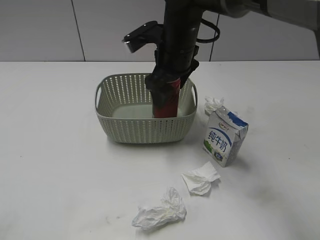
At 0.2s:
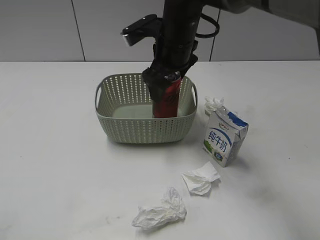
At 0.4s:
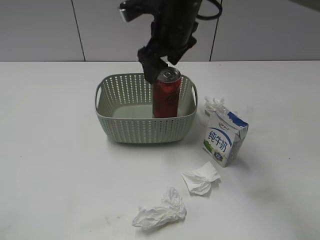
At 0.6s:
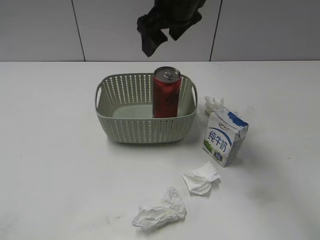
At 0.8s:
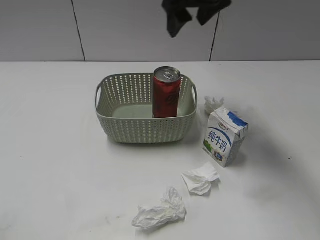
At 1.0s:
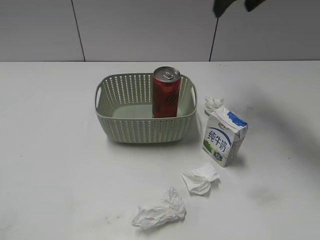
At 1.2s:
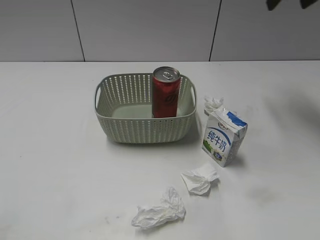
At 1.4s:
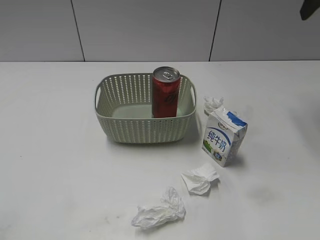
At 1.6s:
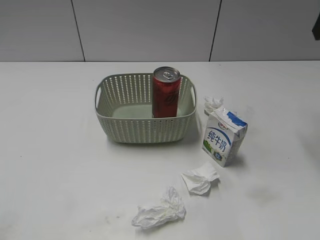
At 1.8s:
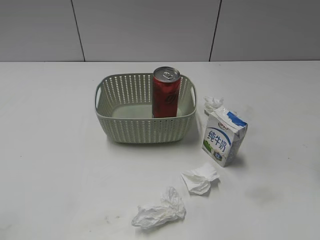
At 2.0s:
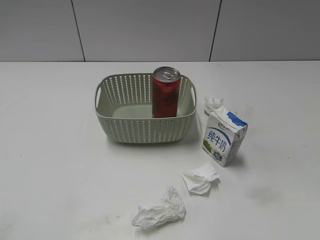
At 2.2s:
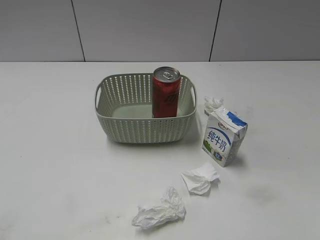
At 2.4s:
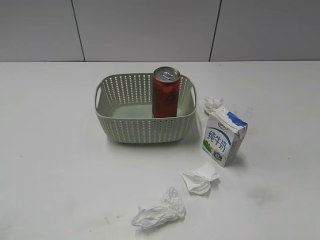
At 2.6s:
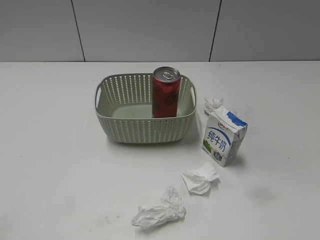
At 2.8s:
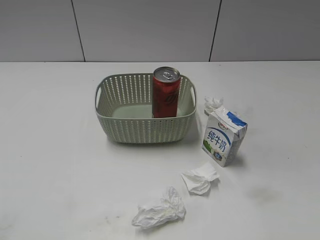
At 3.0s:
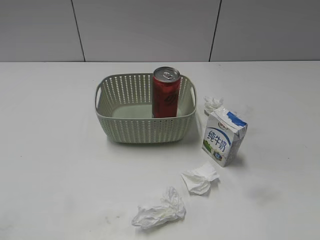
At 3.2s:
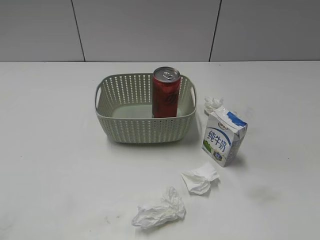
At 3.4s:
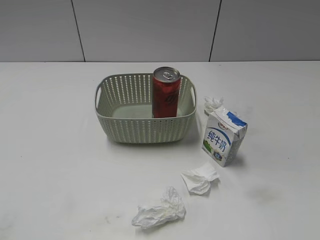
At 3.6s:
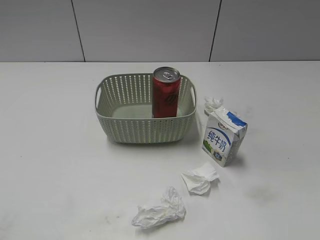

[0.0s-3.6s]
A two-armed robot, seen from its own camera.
0.0s to 1.8s: The right gripper goes approximately 30 cm to the right, upward and backward, and closes.

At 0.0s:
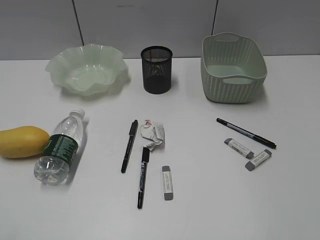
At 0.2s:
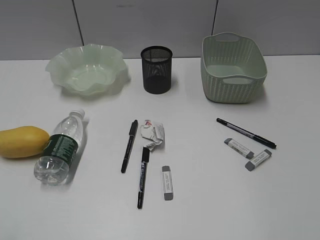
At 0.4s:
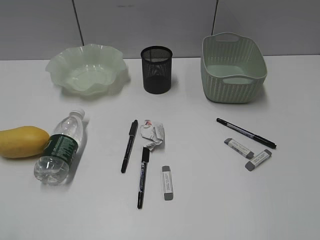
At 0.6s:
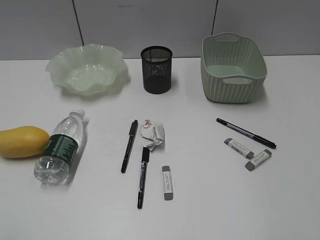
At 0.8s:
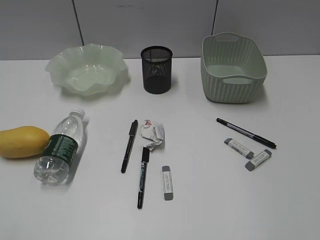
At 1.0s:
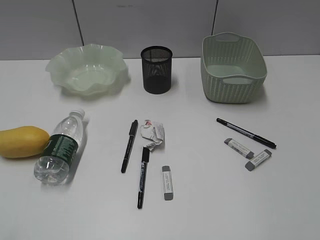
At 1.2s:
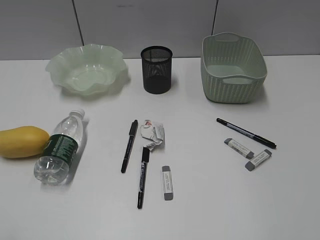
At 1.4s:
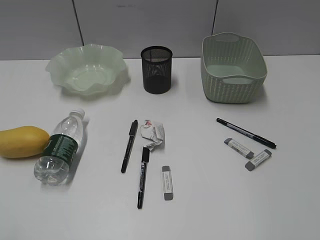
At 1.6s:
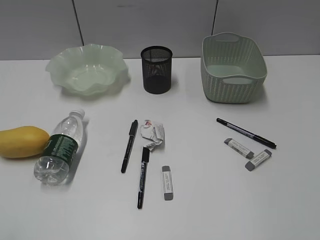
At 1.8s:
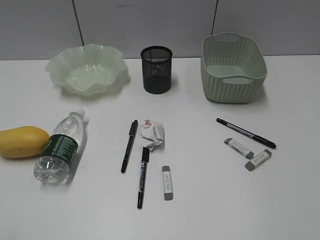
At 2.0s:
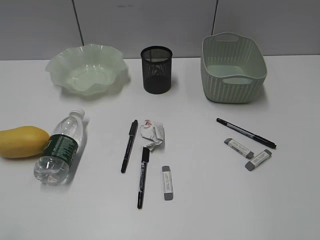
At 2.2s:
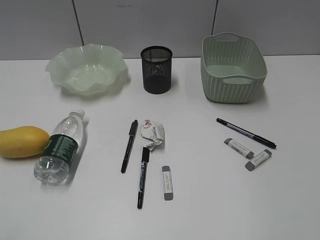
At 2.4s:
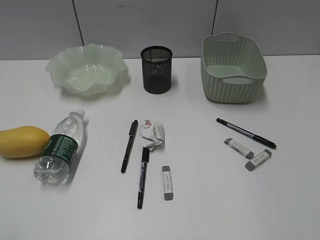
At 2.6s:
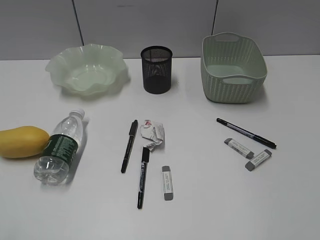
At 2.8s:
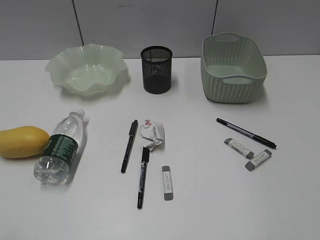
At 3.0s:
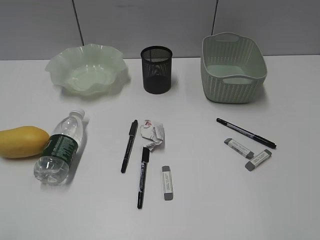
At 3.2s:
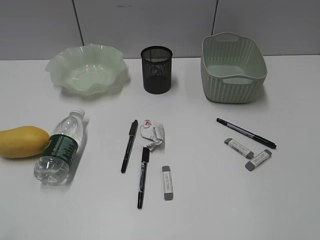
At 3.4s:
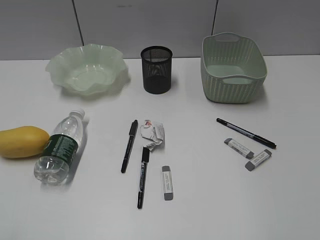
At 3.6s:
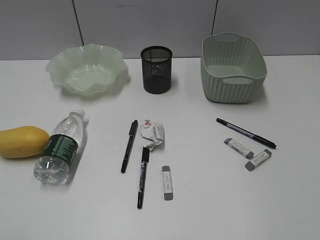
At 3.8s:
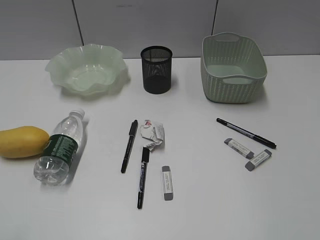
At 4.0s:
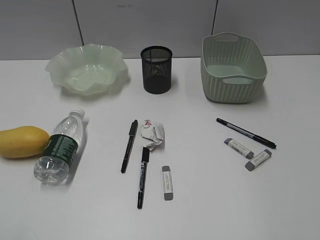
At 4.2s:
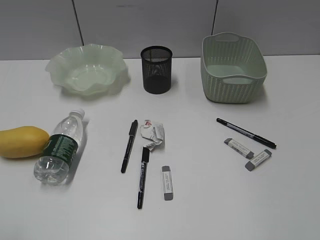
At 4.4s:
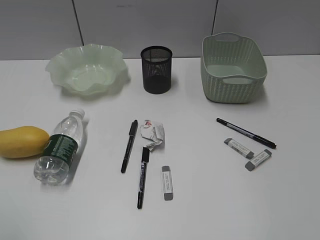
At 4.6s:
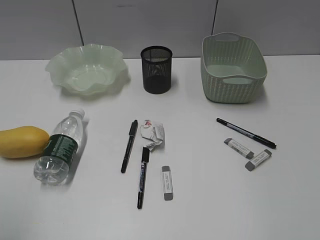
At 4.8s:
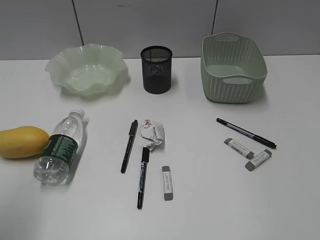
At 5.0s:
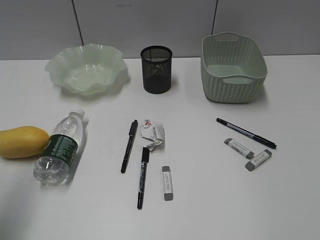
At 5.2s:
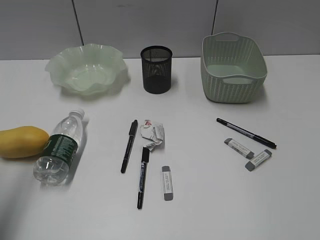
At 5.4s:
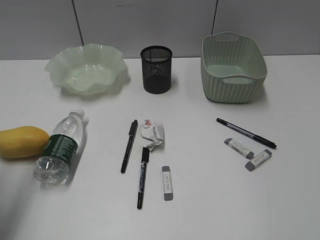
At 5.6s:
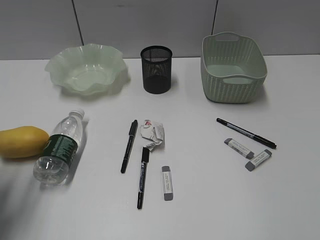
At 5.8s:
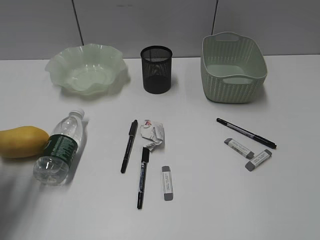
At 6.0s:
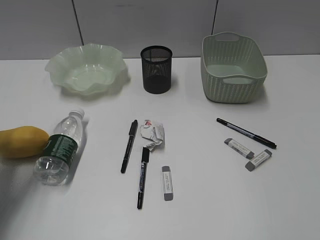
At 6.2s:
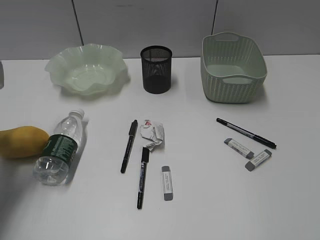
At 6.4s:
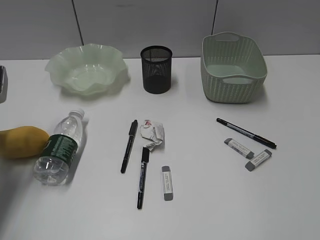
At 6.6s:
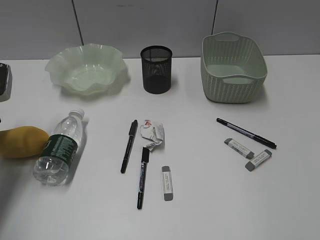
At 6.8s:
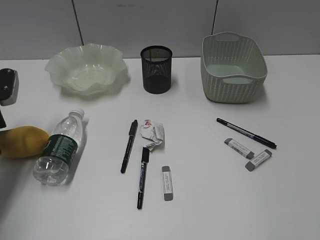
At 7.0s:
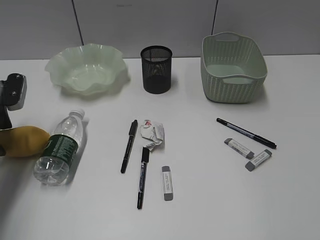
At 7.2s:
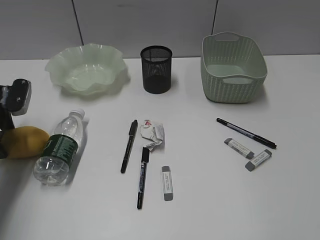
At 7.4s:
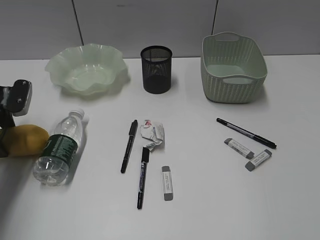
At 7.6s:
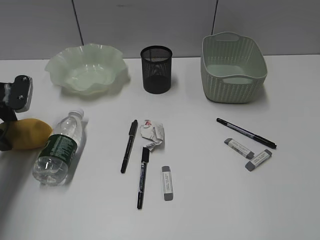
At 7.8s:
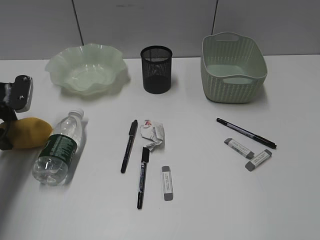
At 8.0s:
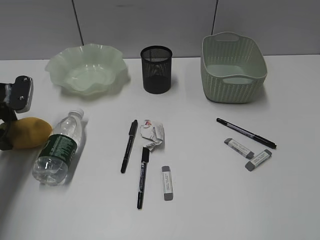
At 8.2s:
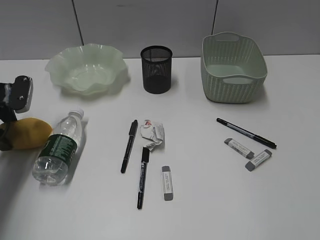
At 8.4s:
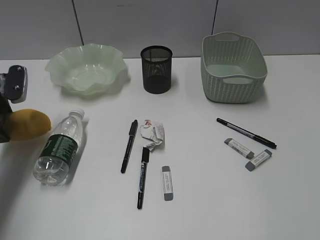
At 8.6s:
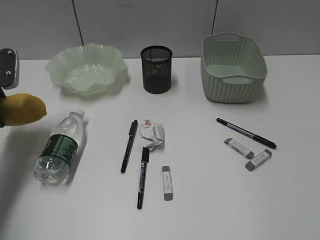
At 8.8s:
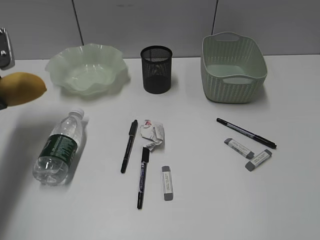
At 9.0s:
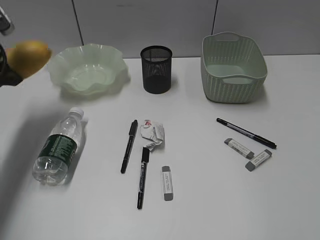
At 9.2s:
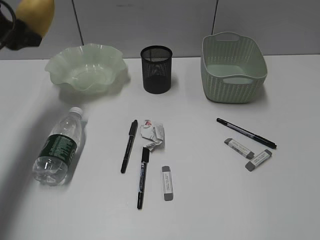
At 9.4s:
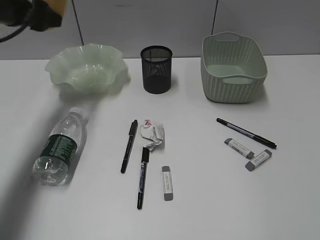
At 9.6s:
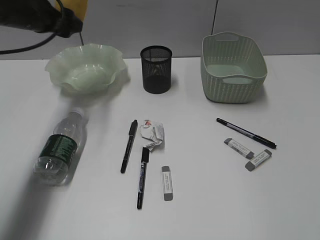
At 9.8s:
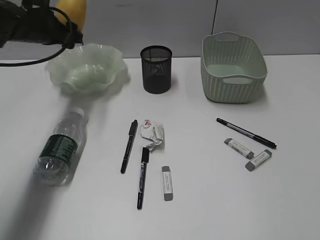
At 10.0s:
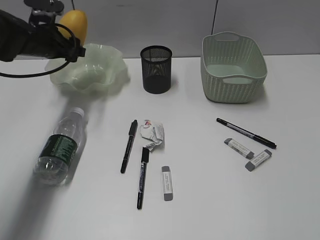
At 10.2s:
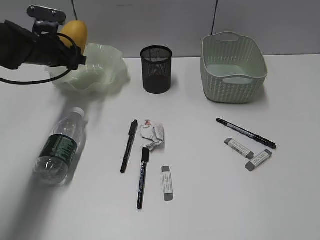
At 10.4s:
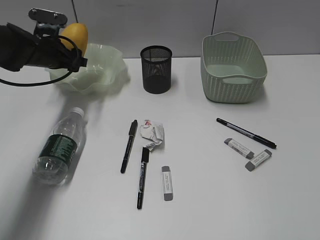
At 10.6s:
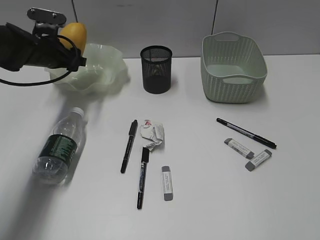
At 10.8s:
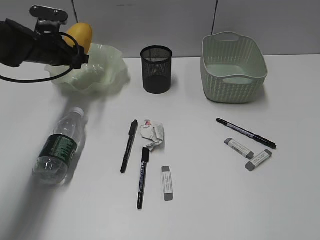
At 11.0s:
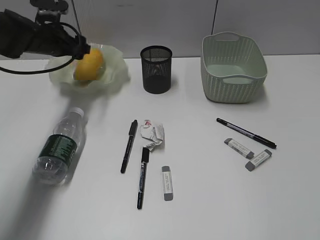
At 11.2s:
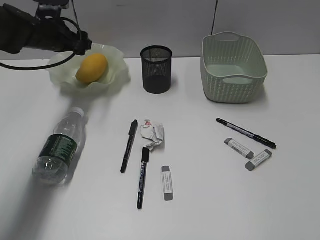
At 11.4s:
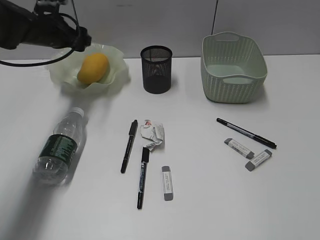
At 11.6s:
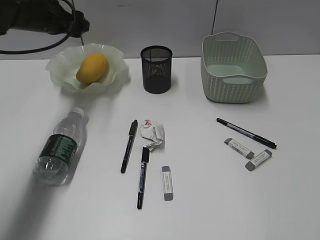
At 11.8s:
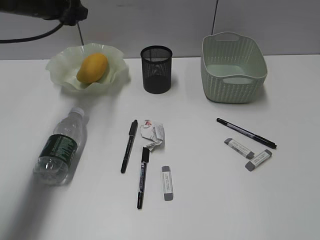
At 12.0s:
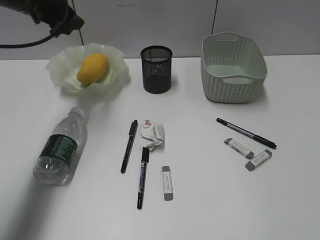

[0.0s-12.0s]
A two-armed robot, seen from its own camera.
Step, 6.2s to 8.0s: Grasp the mango with left gripper.
Step, 8.2s to 11.0s: Place the mango in the plate with left gripper.
1.6s to 3.0s: The two grippers keep their place.
4.4s to 6.0s: The left gripper goes approximately 25 cm forward.
6.0s to 7.6s: The left gripper moves forward and downward, approximately 10 cm.
7.6s to 9.0s: The left gripper moves upward, roughly 10 cm.
9.0s to 10.4s: The left gripper goes some 15 cm forward, to the right and downward.
10.4s to 12.0s: The left gripper travels upward by about 10 cm.

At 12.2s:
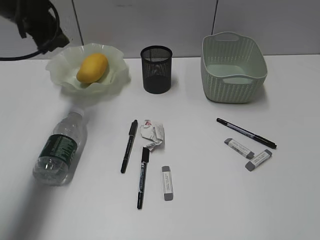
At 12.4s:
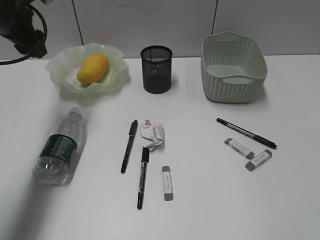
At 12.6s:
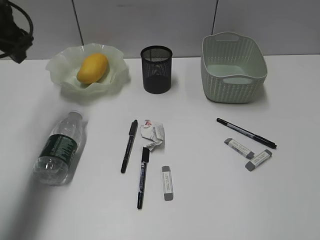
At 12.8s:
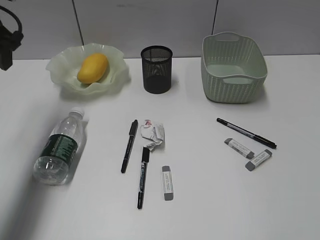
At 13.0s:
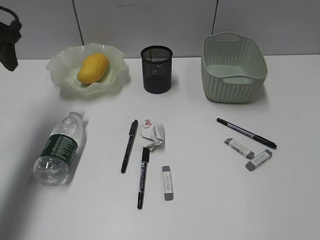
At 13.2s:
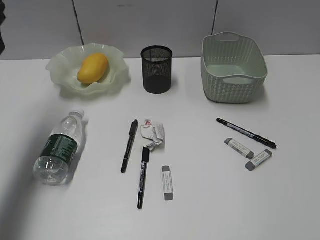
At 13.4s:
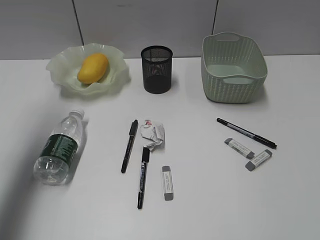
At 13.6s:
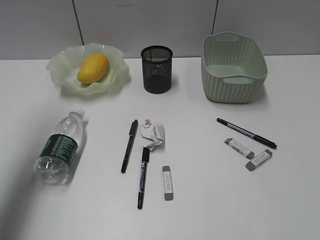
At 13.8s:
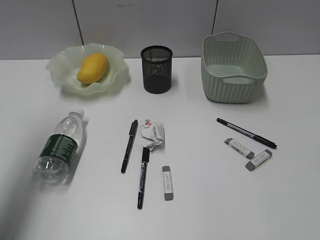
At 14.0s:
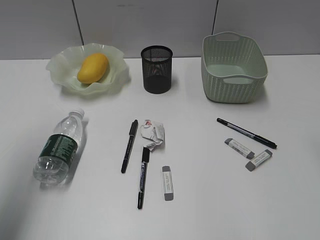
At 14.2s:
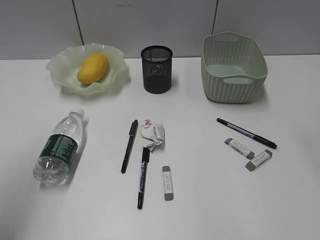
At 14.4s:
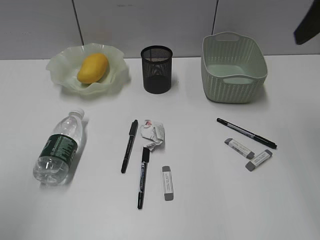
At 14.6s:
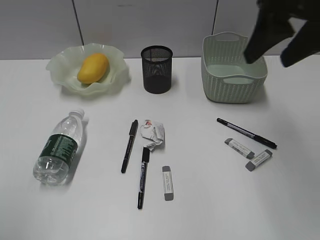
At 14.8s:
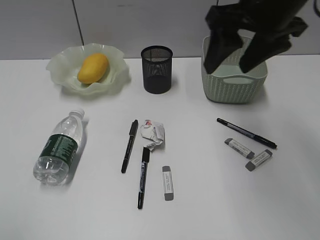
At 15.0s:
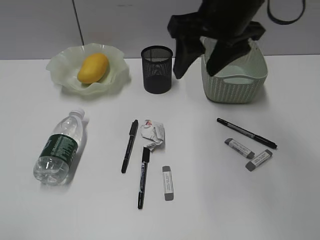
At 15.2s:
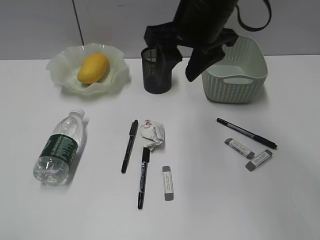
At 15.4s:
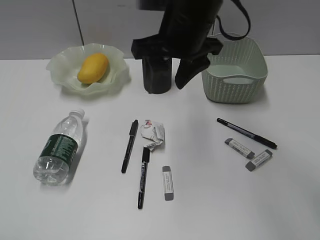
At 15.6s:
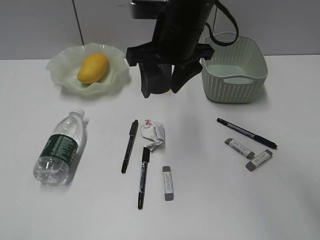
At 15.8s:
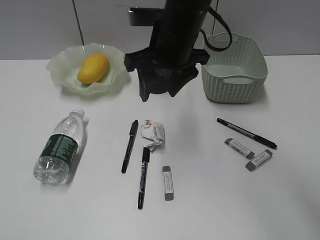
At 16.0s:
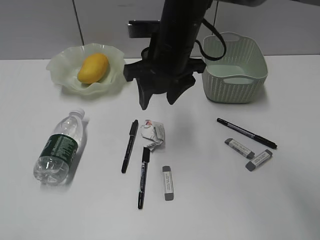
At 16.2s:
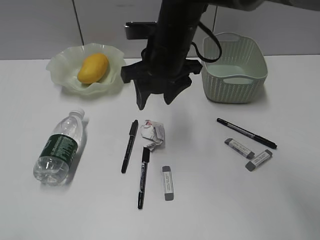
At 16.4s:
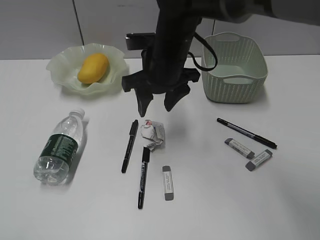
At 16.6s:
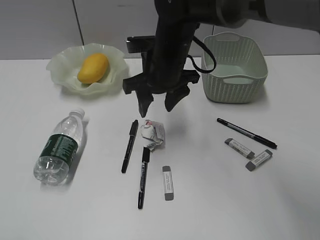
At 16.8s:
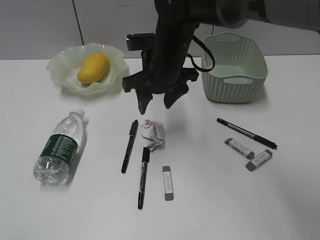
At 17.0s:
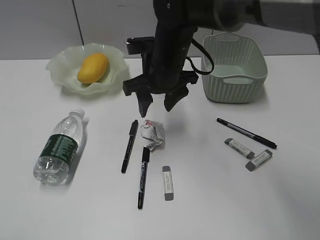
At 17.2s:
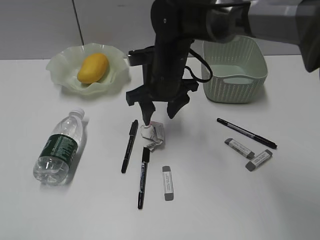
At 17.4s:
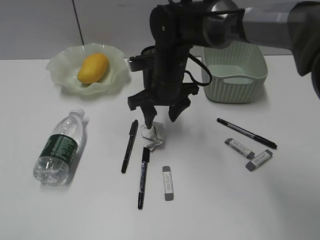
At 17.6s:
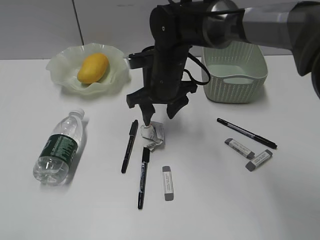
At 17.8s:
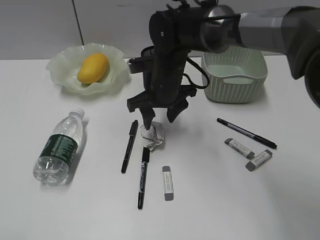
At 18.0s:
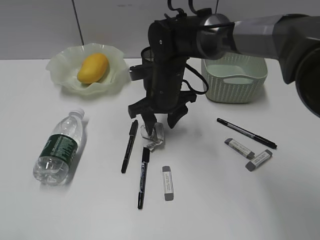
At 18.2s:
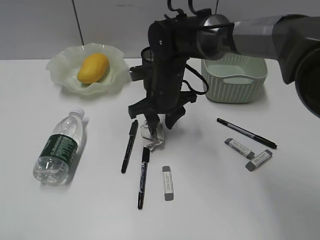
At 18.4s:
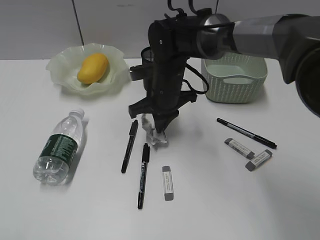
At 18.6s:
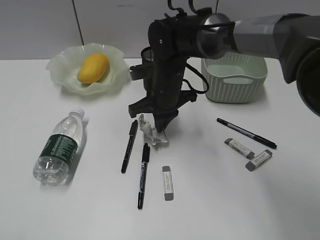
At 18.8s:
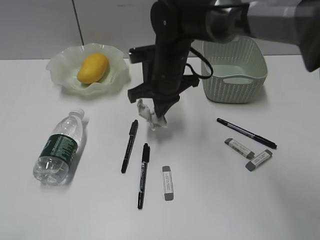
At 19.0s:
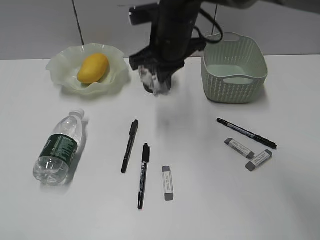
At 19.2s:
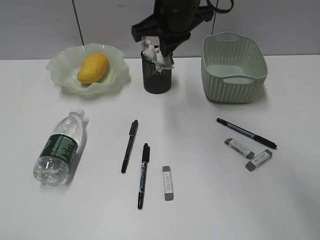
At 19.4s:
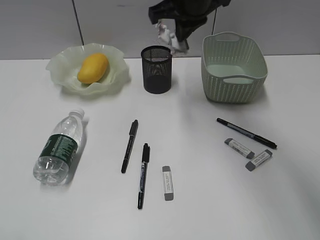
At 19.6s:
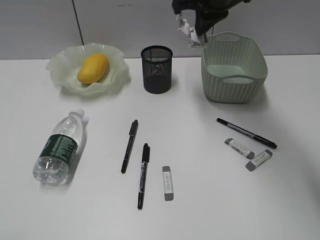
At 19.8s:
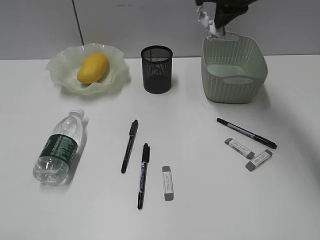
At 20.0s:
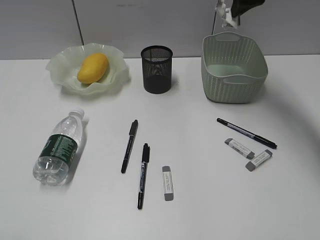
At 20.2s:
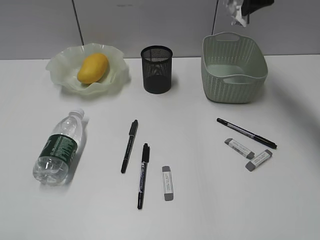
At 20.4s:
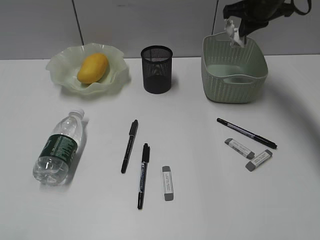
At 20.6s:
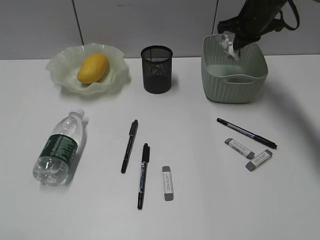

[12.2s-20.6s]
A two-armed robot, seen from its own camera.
Step, 12.2s to 18.4s: Grasp the waste paper with right gripper.
12.2s to 13.6s: The left gripper travels upward, backward and to the left by approximately 20 cm.
13.6s to 15.0s: The right gripper shifts about 30 cm to the left and forward; the left gripper shifts roughly 30 cm backward.
15.0s to 16.4s: The left gripper travels downward by some 5 cm. The right gripper travels downward and to the left by roughly 15 cm.
16.4s to 17.8s: The right gripper travels downward by roughly 5 cm.
17.8s to 19.2s: The right gripper moves upward, some 15 cm, and closes.
19.2s to 20.6s: The right gripper is displaced to the right and forward by roughly 20 cm.
